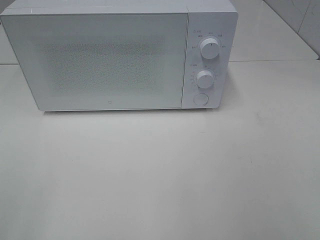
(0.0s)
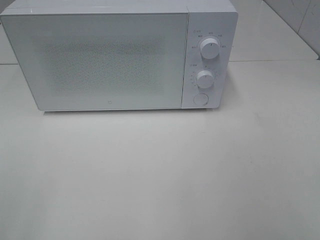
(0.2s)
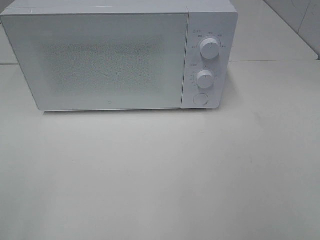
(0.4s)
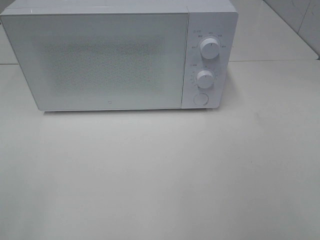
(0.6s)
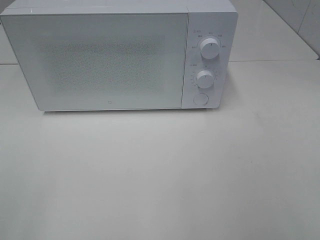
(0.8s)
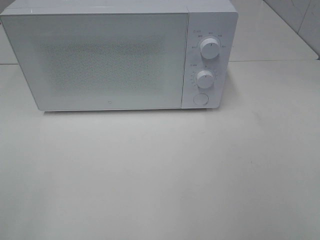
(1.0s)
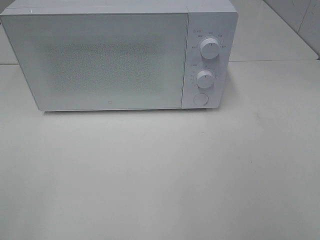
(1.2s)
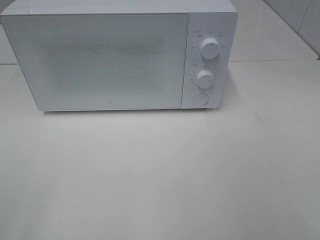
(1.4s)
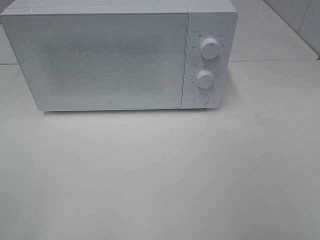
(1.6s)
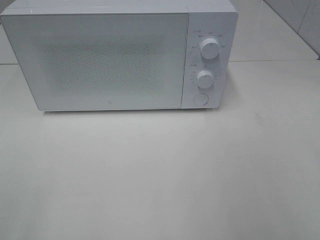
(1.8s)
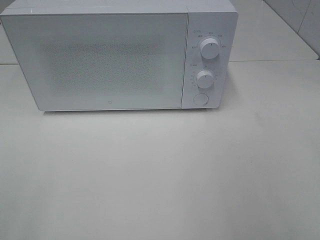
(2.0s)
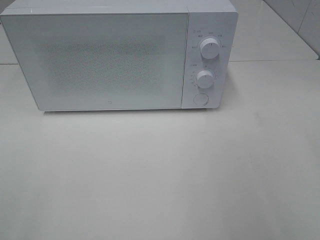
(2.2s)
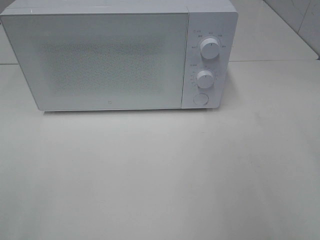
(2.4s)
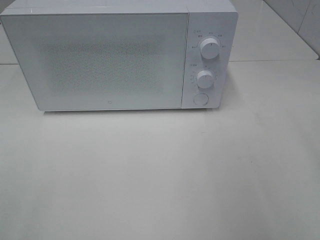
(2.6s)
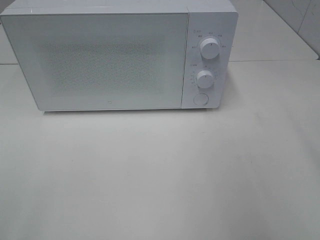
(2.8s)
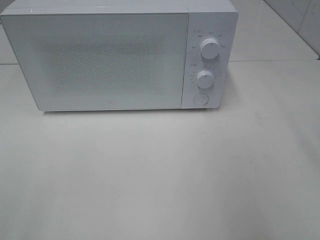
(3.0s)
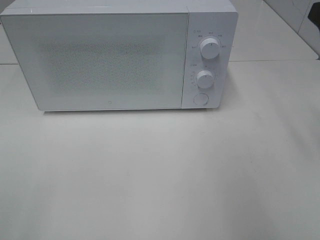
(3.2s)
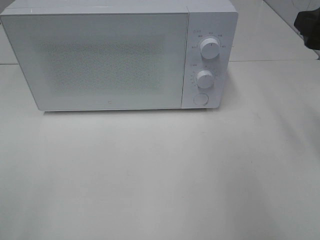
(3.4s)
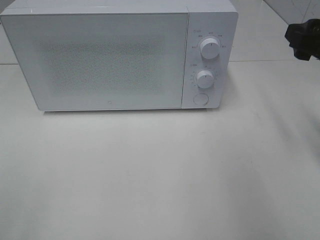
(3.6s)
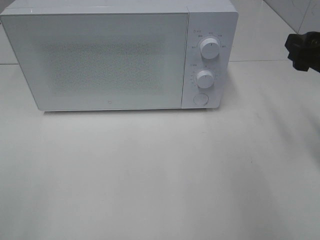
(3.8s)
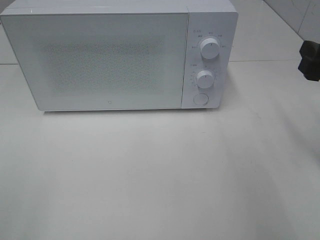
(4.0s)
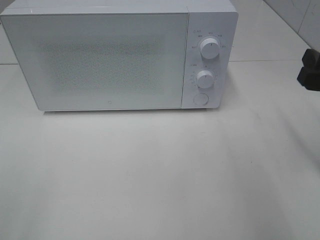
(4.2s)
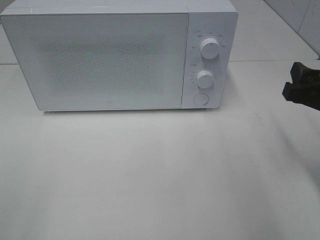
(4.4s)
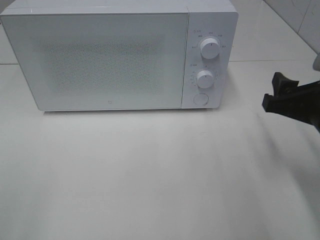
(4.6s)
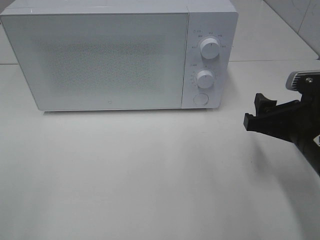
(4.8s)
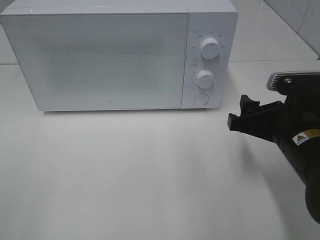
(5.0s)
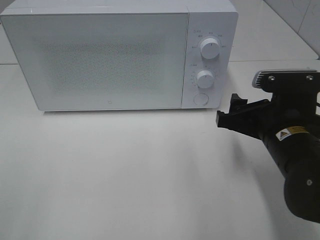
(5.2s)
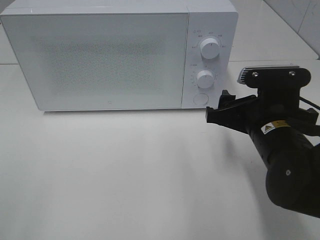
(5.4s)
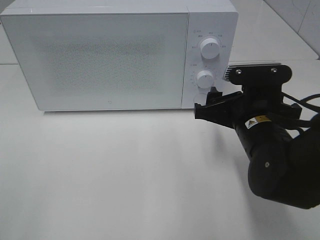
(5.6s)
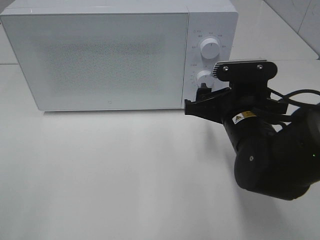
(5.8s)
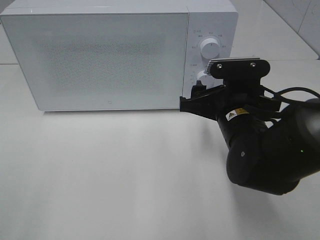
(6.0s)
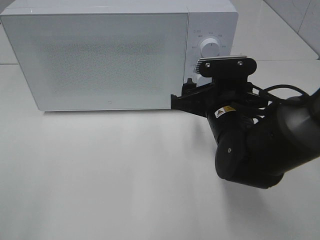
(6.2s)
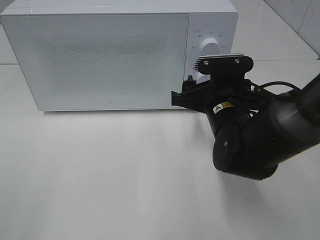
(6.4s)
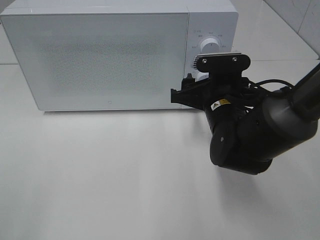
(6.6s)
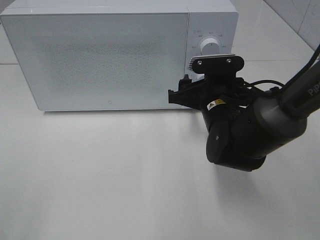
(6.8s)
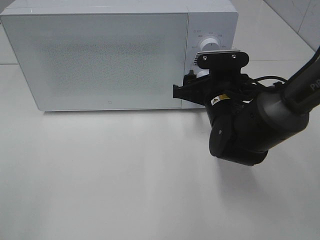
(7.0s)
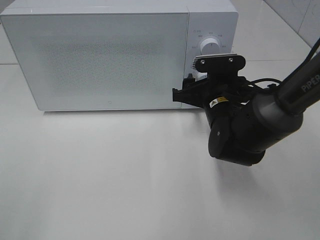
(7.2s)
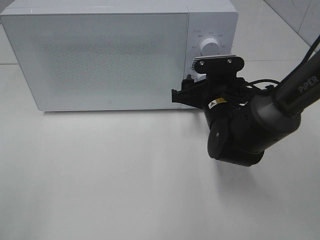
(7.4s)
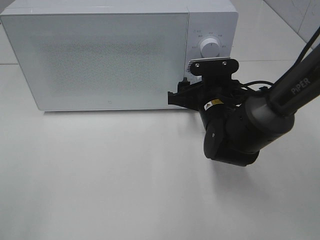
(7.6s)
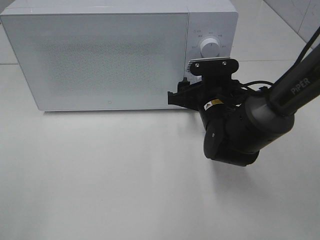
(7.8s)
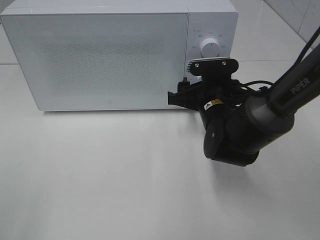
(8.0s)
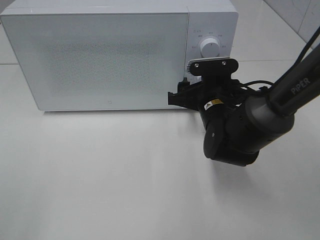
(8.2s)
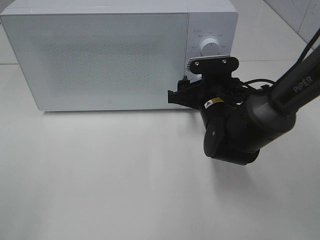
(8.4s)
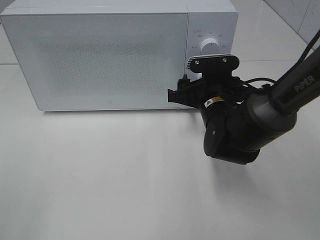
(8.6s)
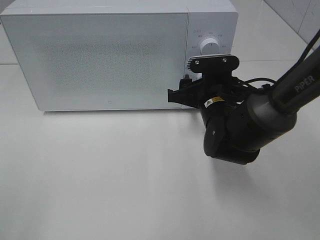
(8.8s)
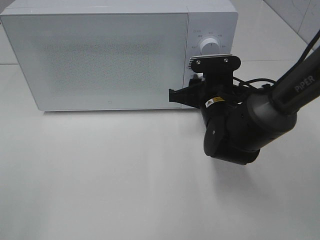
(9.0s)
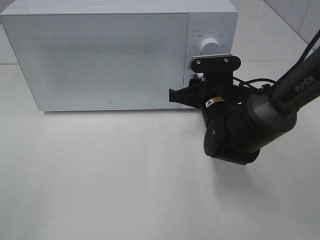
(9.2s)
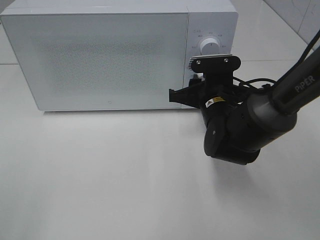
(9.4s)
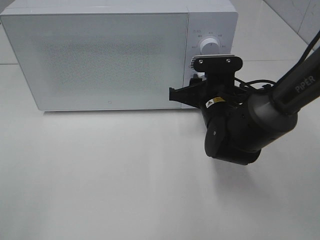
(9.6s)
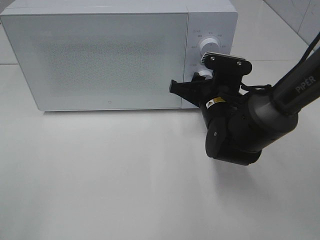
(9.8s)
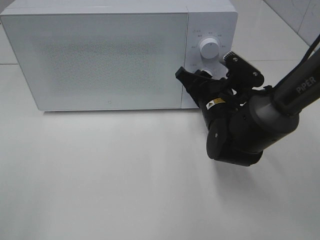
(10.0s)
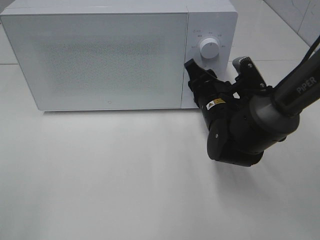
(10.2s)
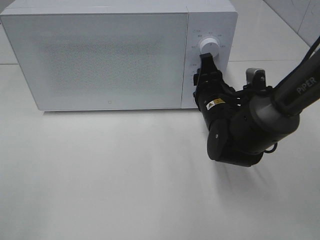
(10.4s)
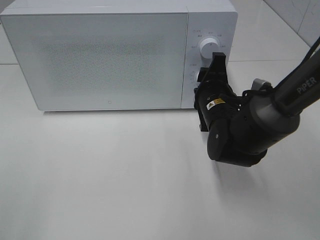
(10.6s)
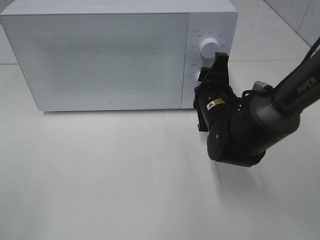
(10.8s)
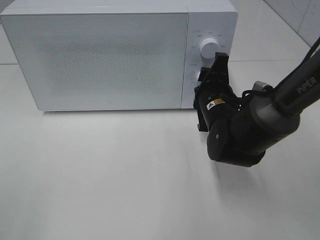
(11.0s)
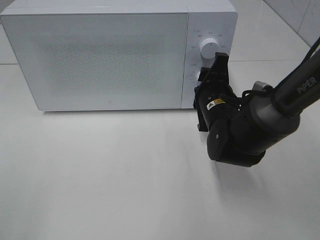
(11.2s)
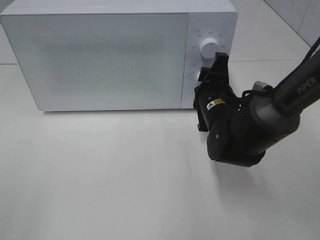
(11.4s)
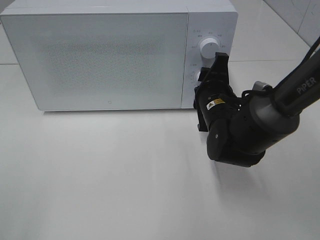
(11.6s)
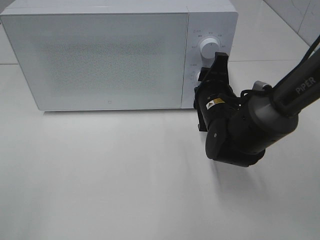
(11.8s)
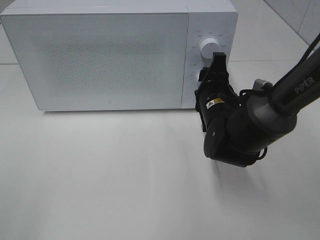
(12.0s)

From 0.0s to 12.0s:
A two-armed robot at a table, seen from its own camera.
Task of the whole recording: Heat the burger.
From 3.0s to 4.4s: The right gripper shifts approximately 10 cm downward.
From 4.4s to 6.0s: The right gripper goes roughly 15 cm to the left.
From 6.0s to 7.6s: The right gripper moves forward, roughly 5 cm.
From 7.6s to 9.0s: The right gripper closes its fingers.
From 10.4s to 12.0s: The grippers make only small movements.

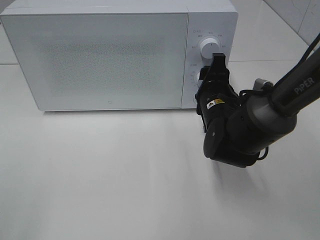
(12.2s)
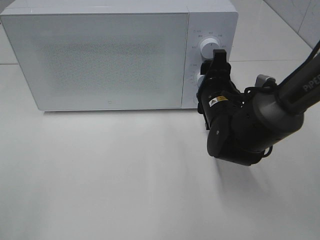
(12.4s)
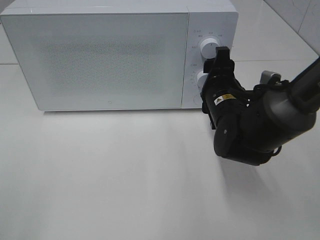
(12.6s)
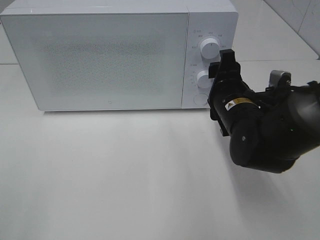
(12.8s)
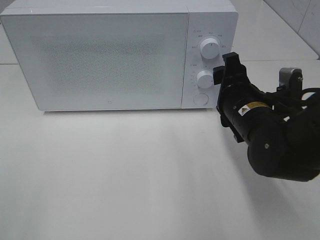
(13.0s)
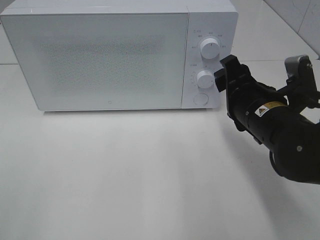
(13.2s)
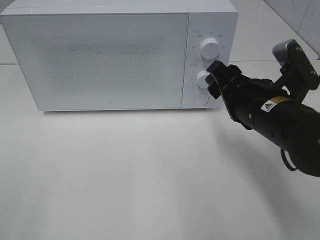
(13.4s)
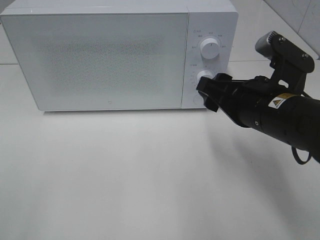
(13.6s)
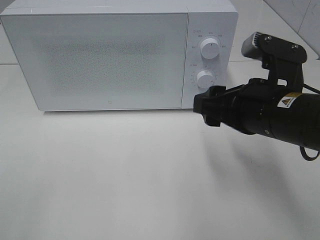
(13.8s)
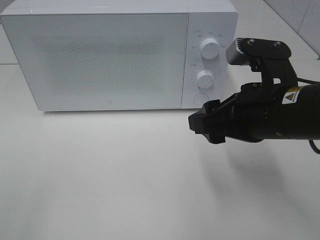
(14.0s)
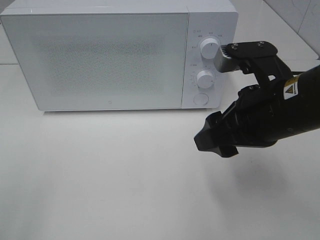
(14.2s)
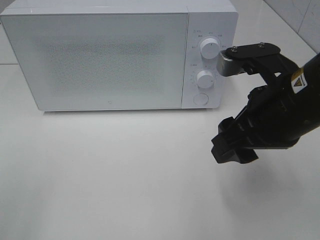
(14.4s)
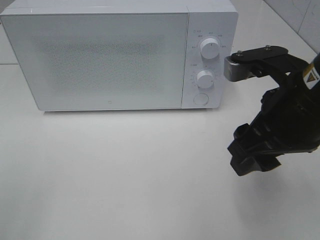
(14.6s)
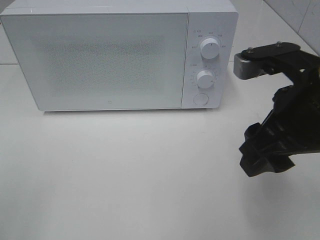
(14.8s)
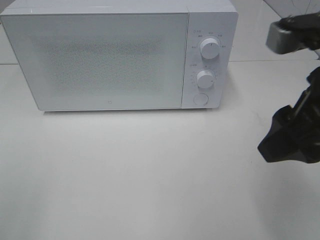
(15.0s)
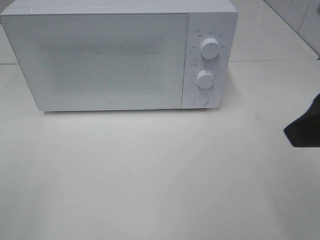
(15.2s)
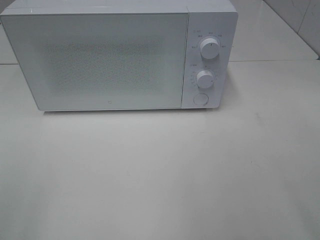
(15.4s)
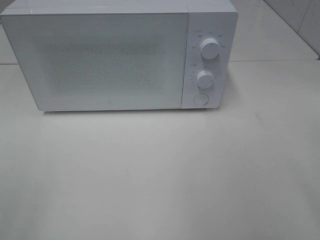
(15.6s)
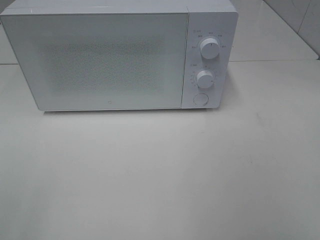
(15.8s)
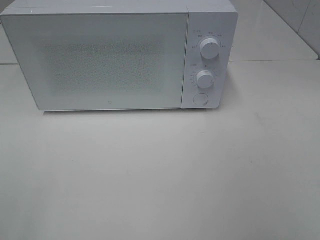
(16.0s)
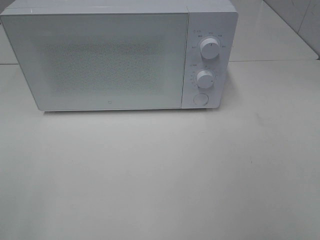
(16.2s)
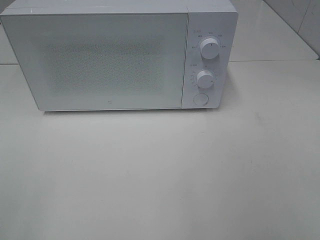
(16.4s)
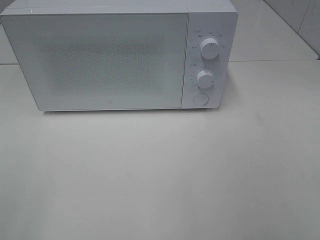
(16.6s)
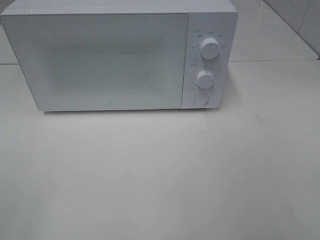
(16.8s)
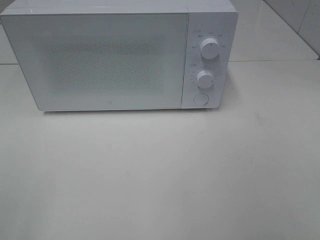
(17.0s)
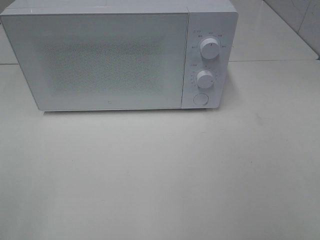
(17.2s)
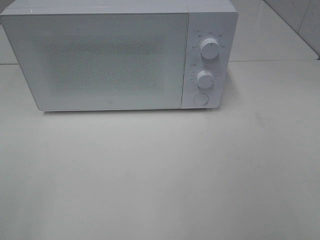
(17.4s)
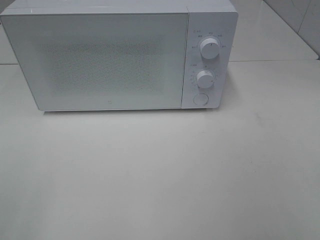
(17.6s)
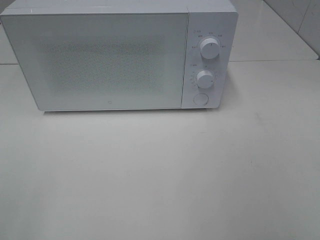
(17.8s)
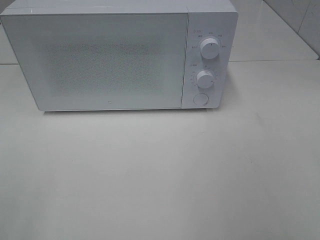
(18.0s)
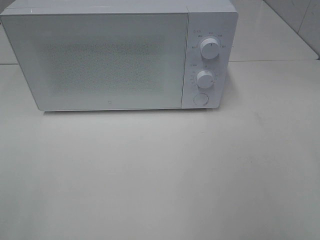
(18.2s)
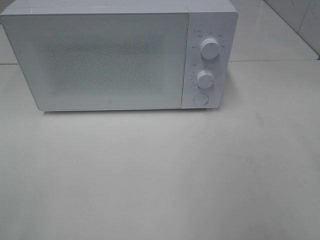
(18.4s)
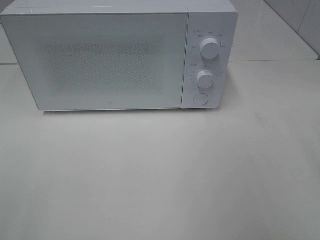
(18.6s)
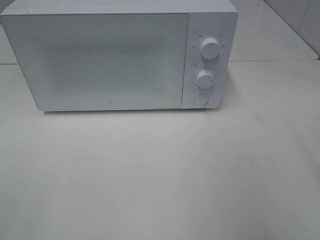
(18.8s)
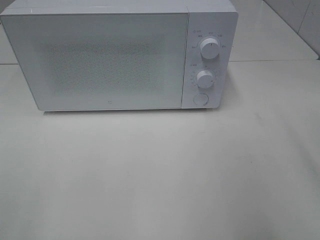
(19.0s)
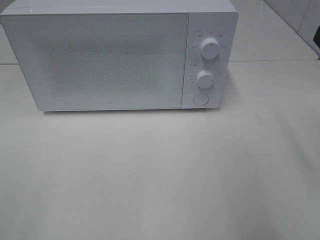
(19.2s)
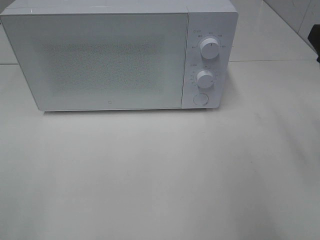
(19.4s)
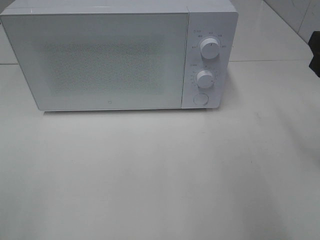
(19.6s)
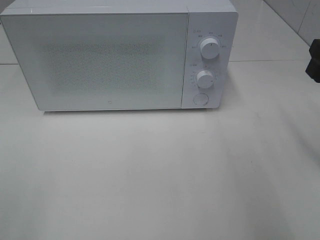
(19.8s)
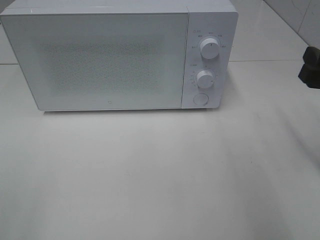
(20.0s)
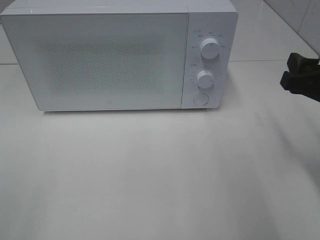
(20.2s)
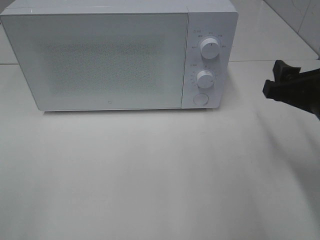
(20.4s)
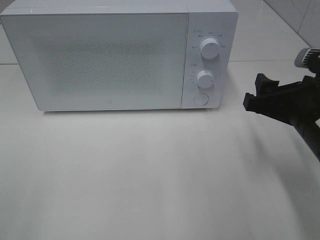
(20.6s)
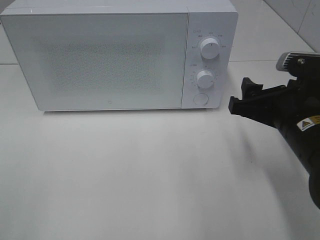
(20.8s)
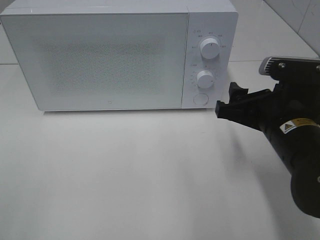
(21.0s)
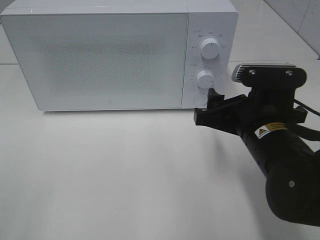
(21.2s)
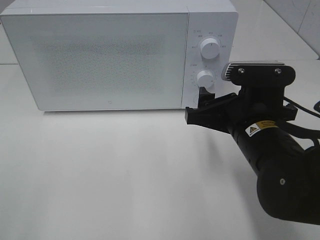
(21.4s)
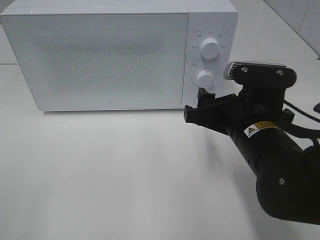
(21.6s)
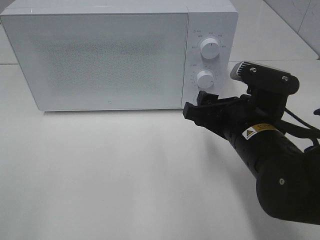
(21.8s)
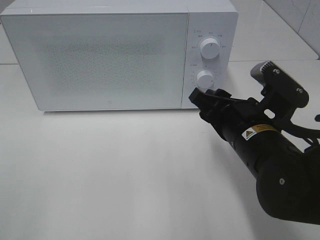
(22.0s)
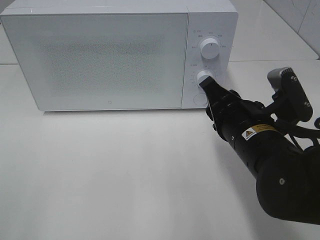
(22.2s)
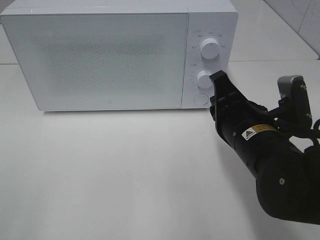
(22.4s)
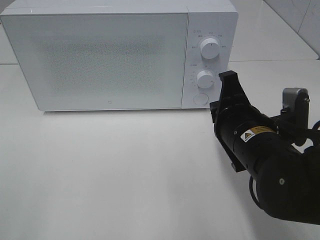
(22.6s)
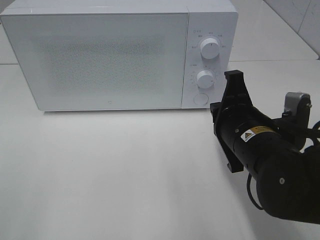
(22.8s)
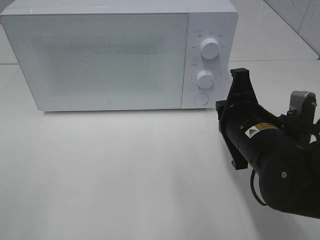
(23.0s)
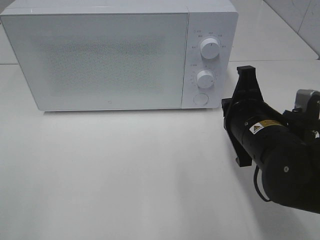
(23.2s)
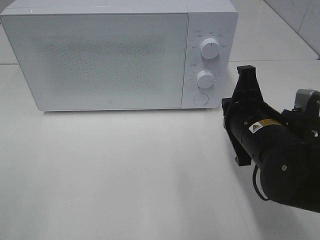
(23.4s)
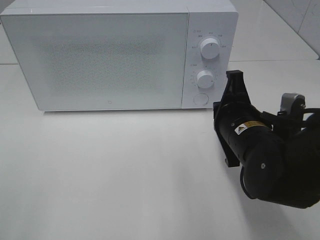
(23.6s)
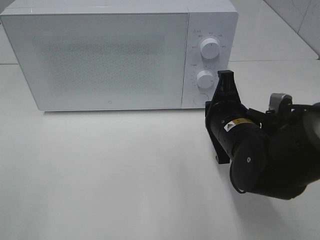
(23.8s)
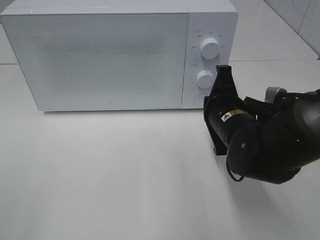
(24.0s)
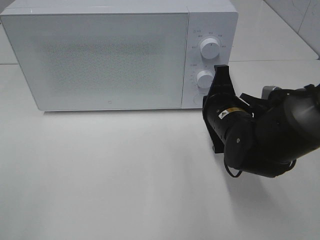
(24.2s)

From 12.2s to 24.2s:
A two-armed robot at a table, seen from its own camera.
Task of the whole recording: Heat the burger.
From 12.2s to 13.8s: The right gripper moves backward and upward, roughly 15 cm.
From 13.8s to 15.2s: The right gripper moves upward, backward and to the right, some 15 cm.
From 15.2s to 16.6s: The right gripper moves backward and to the right, about 15 cm.
From 18.2s to 19.8s: The right gripper is displaced forward and downward by about 20 cm.
From 19.8s to 21.2s: The right gripper travels to the left and downward by about 15 cm.
From 21.2s to 22.6s: The right gripper closes its fingers.
From 22.6s to 24.2s: The right gripper is displaced forward by approximately 5 cm.
